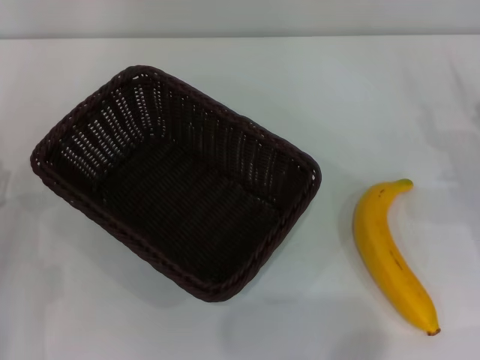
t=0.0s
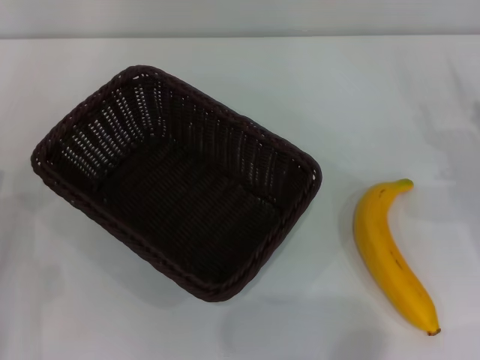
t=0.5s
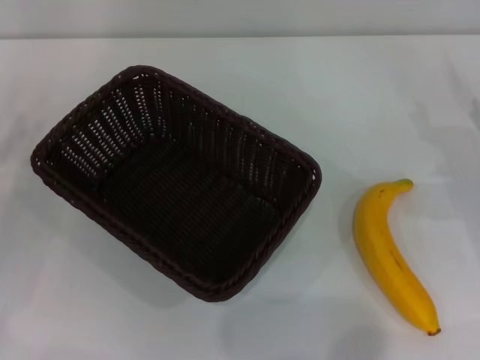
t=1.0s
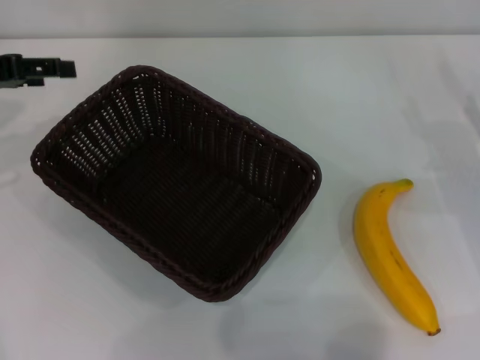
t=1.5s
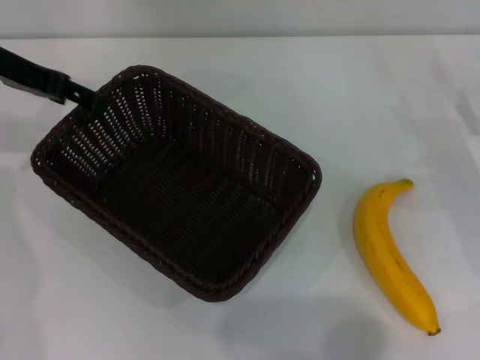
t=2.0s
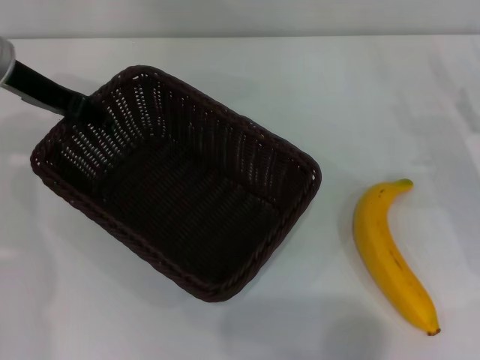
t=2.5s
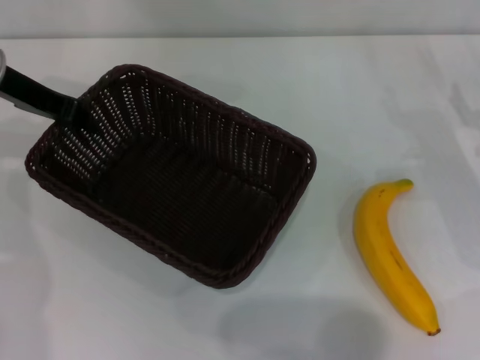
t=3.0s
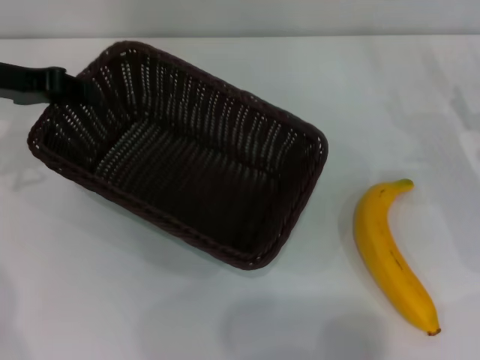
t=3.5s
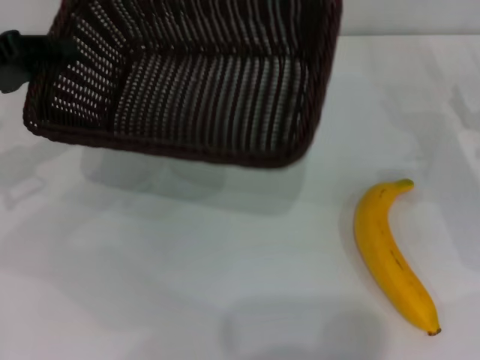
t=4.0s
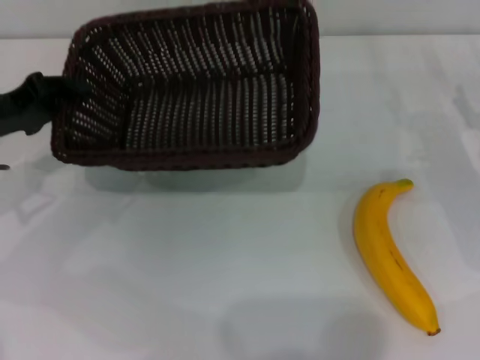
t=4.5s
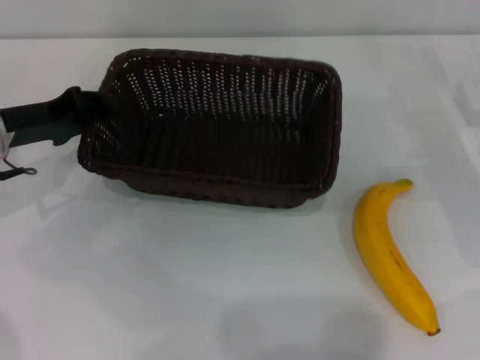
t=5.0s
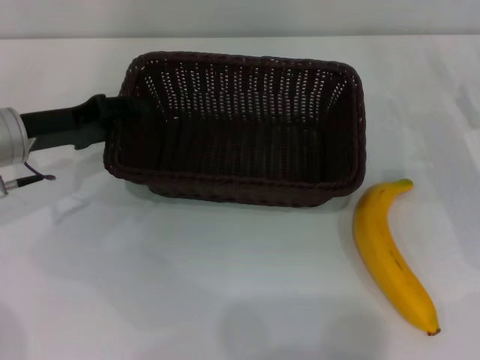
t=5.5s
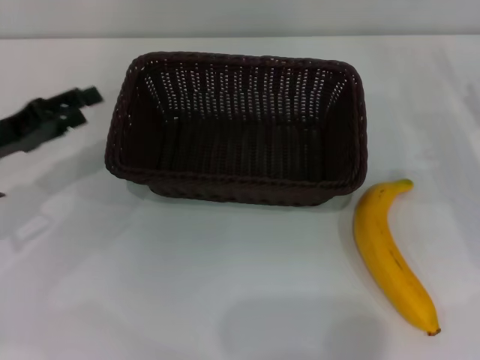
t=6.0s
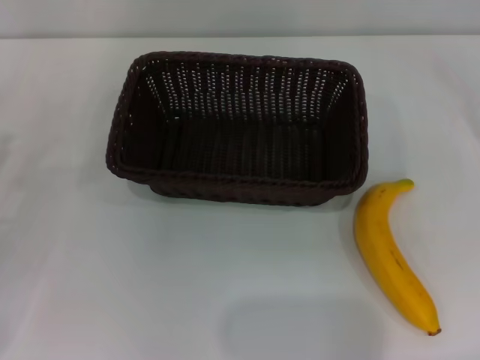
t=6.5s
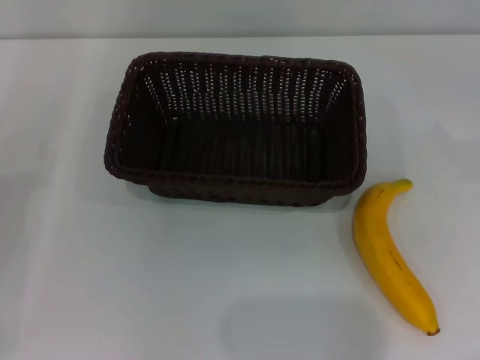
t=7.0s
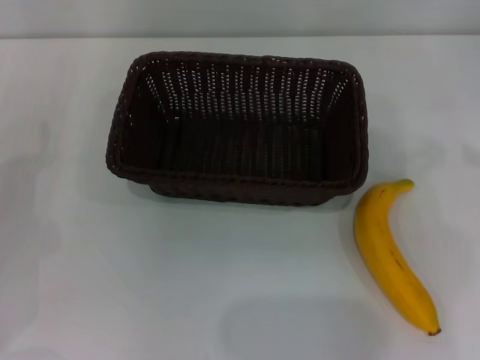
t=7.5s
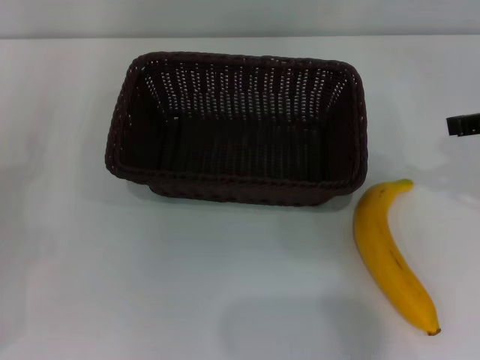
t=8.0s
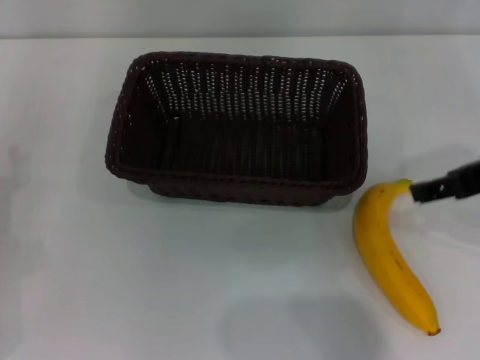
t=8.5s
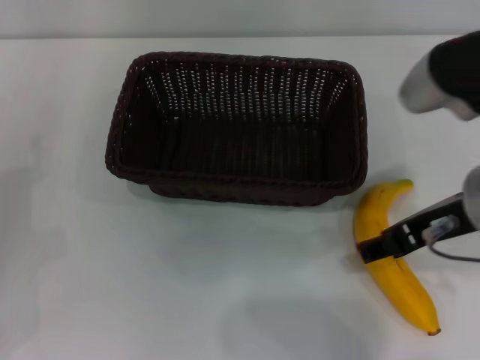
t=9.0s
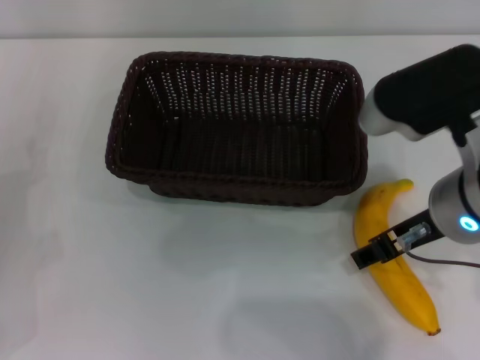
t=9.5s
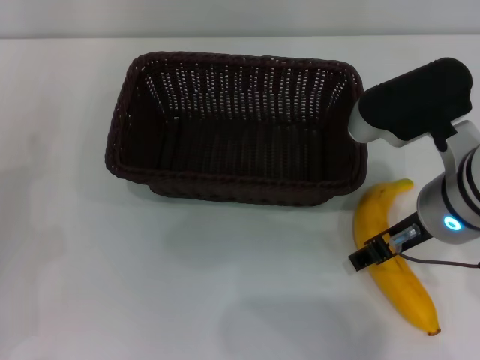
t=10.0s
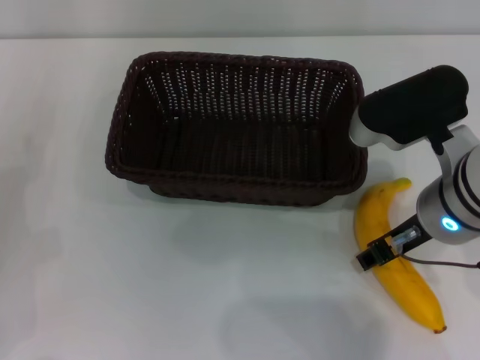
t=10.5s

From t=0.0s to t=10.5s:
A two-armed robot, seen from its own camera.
Step, from t=0.0s to t=3.5s: Pick up the dark basket with the left gripper.
Step, from t=4.0s to t=6.0s: Place the dark basket in the center of view with the left gripper.
From t=0.0s to t=2.0s: The left gripper shifts some 30 cm upward and forward.
From t=2.0s to t=4.0s: The left gripper heads backward and to the left, covering approximately 10 cm, and closes up.
From t=4.0s to t=6.5s: The left gripper goes approximately 15 cm backward and downward, and opens its fingers. Meanwhile the right gripper goes approximately 10 cm to the right.
From t=6.5s to t=8.5s: The right gripper travels to the left and upward by approximately 25 cm.
From t=8.5s to t=10.5s: The right gripper travels to the left and downward by roughly 10 cm, and closes its fingers.

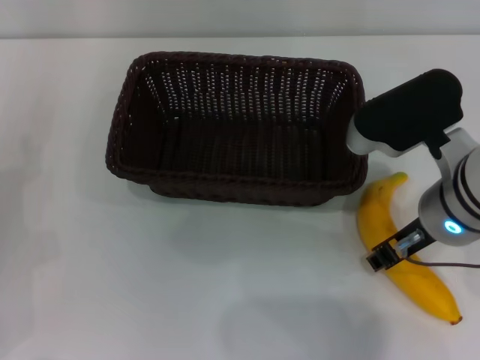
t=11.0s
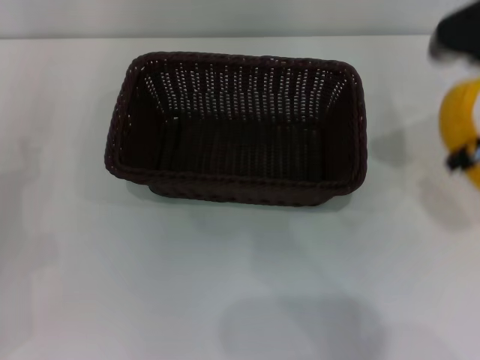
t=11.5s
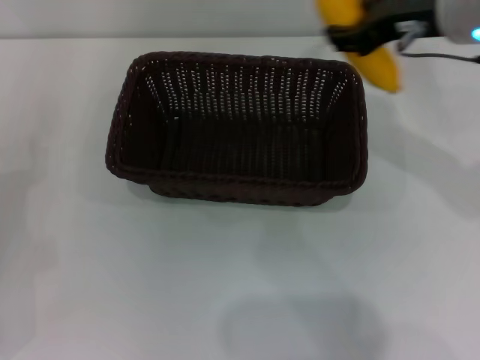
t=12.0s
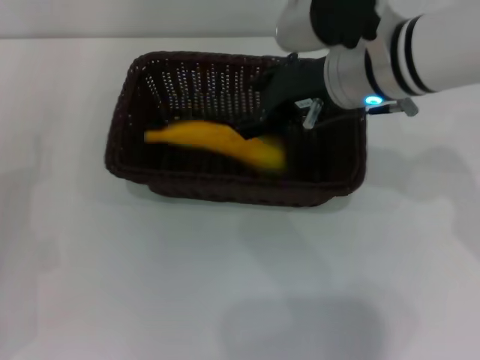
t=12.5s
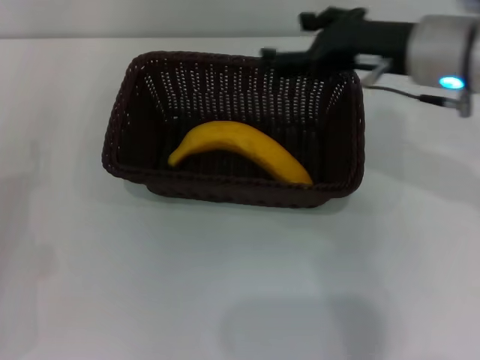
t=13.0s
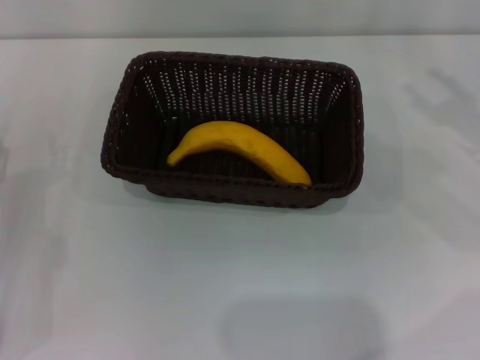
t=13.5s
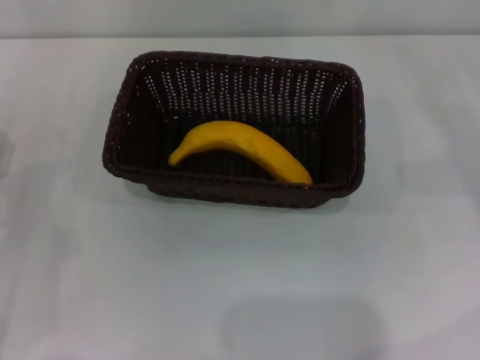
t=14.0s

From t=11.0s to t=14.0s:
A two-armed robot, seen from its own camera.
Step, from t=11.5s to t=12.5s: Place the banana into the dark basket with the right gripper.
From t=11.0s to t=12.5s: The right gripper shifts some 10 cm forward.
From t=12.5s to t=14.0s: The right gripper travels to the right and downward by some 30 cm, and opens its fingers.
